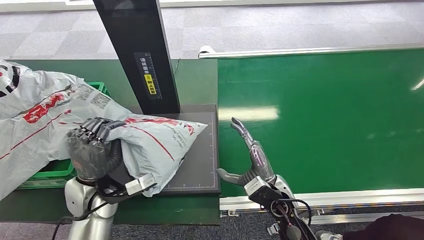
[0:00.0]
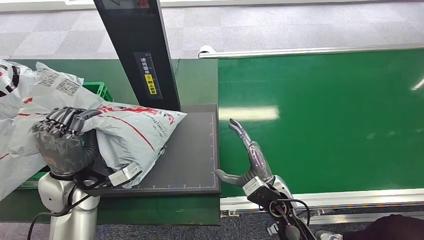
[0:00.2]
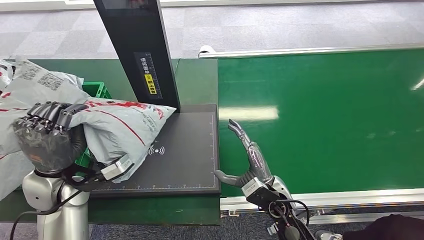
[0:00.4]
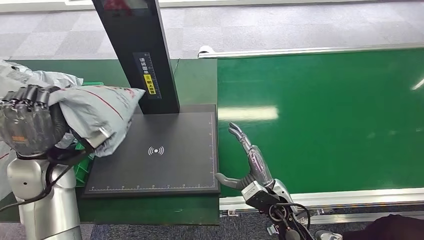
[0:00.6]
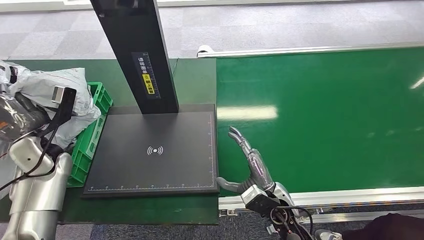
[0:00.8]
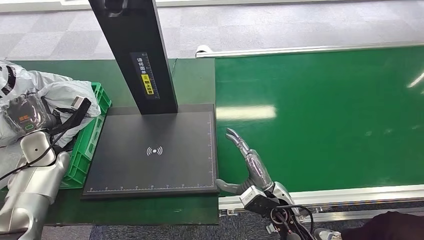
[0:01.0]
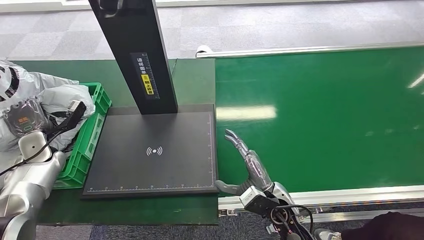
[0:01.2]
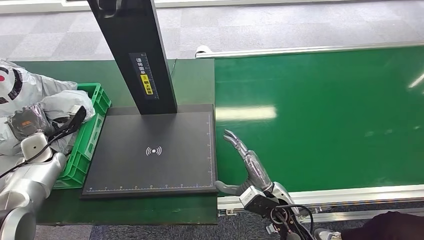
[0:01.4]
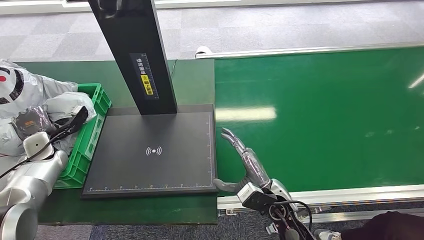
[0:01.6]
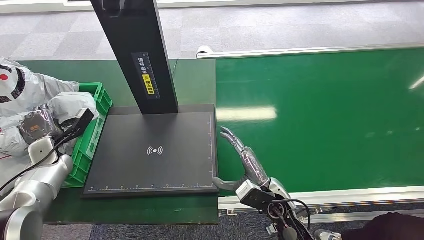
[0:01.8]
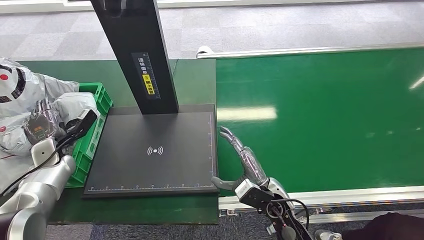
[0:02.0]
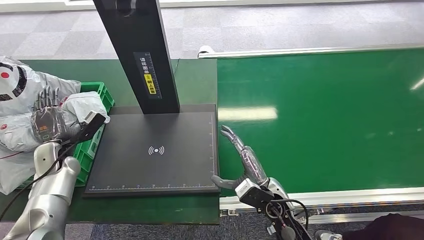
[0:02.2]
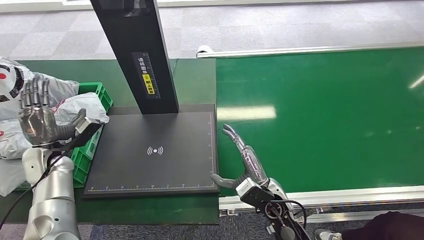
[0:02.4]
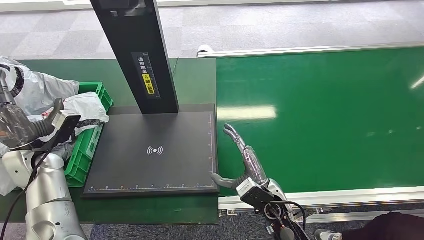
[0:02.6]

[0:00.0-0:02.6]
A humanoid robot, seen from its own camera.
Step, 0:00.0 to 0:02.6: Place the package into the parcel locker.
0:01.2 to 0:02.6: The left hand goes roughly 5 cm backward.
